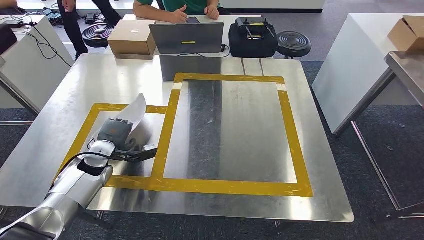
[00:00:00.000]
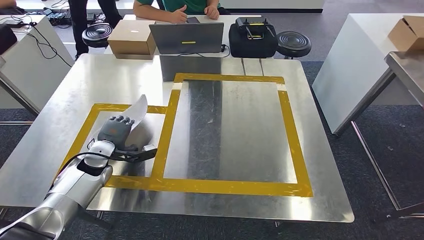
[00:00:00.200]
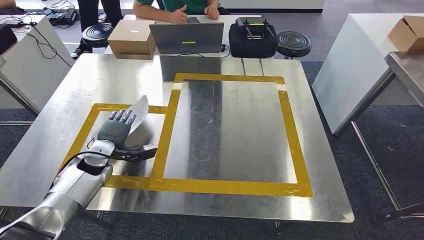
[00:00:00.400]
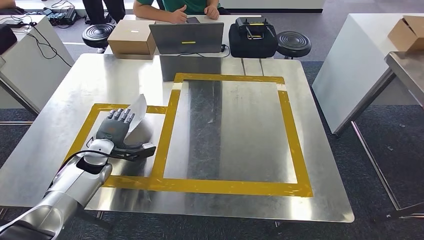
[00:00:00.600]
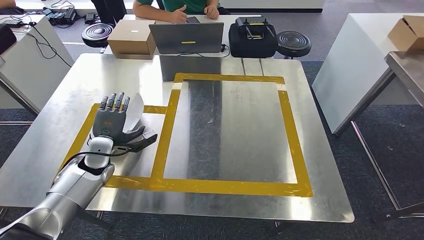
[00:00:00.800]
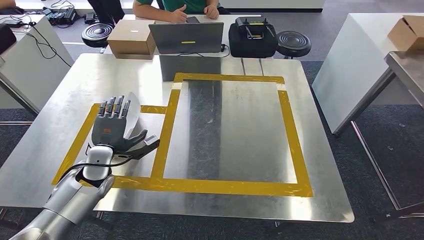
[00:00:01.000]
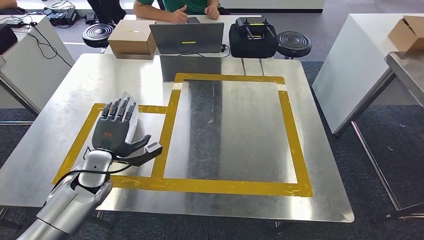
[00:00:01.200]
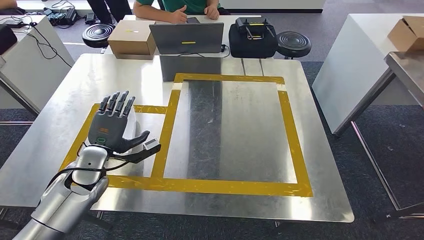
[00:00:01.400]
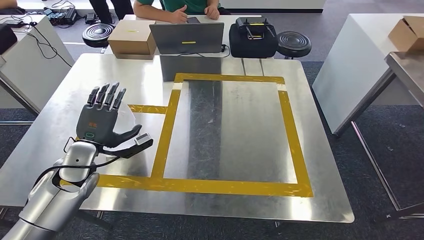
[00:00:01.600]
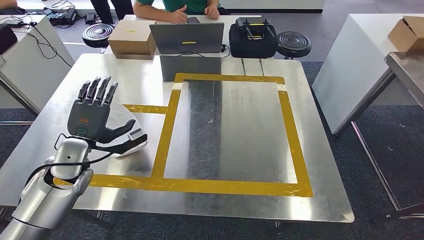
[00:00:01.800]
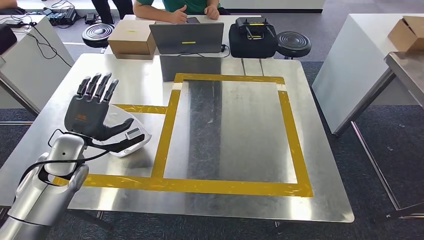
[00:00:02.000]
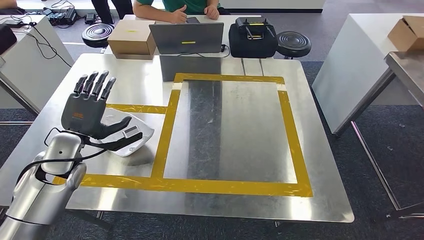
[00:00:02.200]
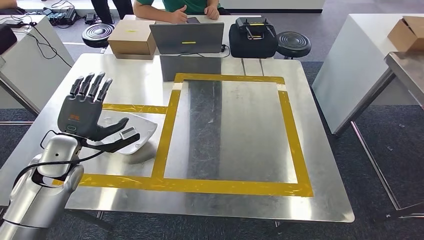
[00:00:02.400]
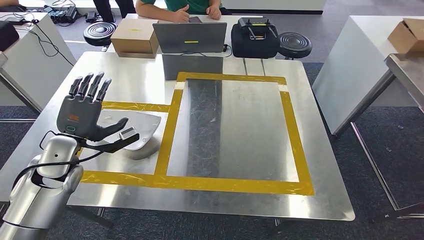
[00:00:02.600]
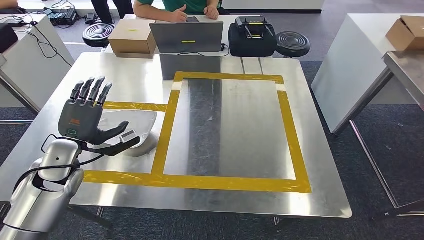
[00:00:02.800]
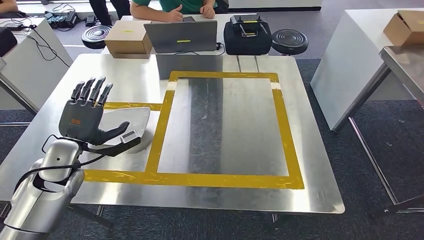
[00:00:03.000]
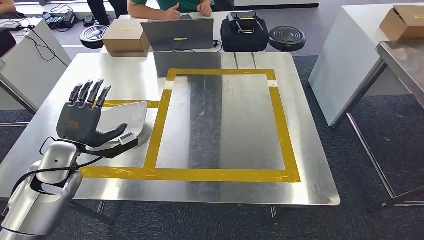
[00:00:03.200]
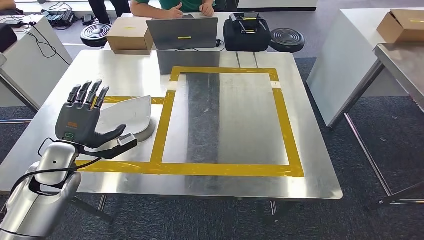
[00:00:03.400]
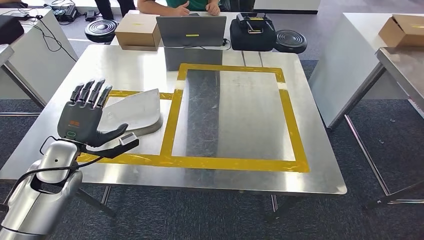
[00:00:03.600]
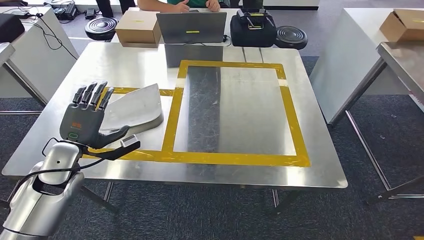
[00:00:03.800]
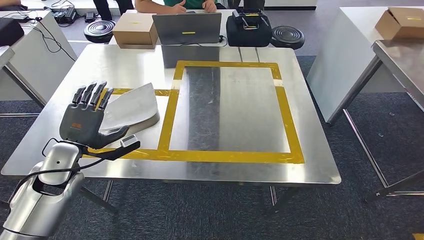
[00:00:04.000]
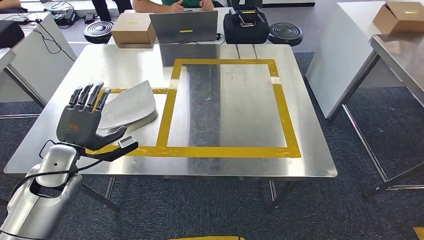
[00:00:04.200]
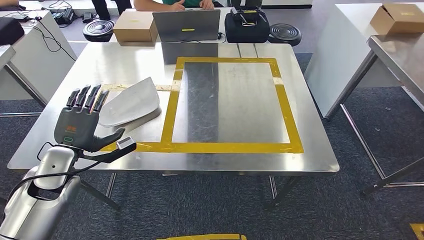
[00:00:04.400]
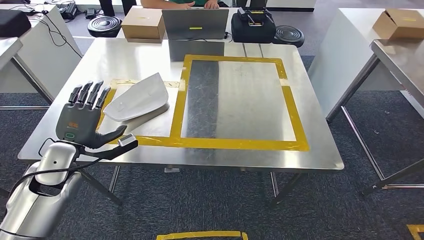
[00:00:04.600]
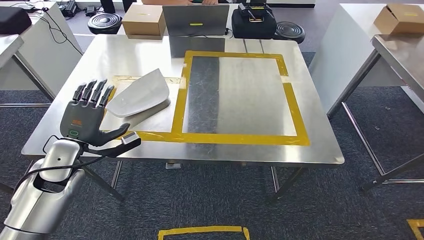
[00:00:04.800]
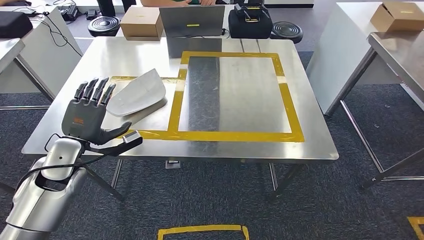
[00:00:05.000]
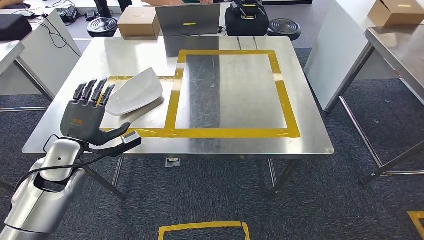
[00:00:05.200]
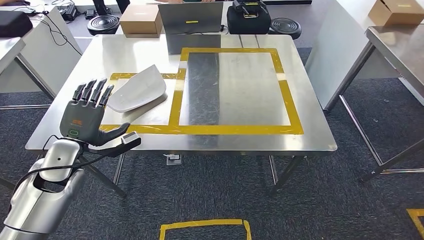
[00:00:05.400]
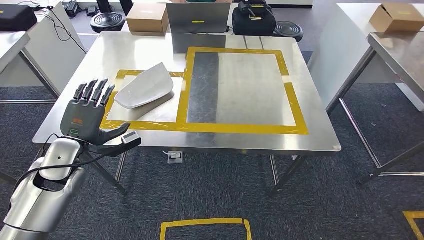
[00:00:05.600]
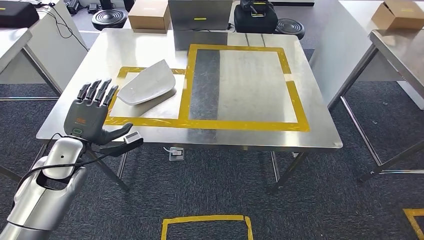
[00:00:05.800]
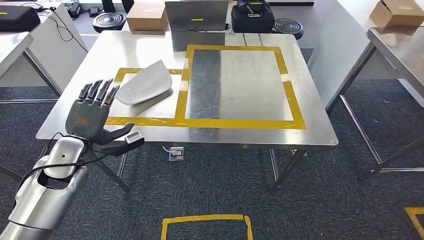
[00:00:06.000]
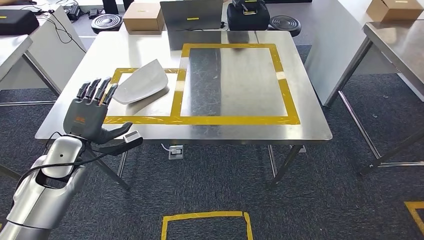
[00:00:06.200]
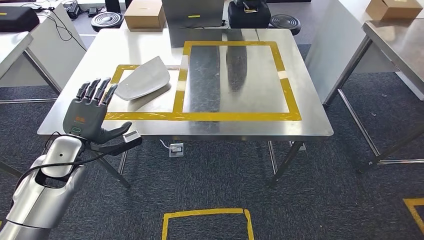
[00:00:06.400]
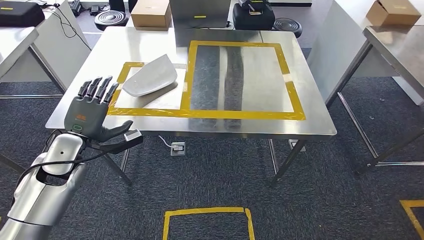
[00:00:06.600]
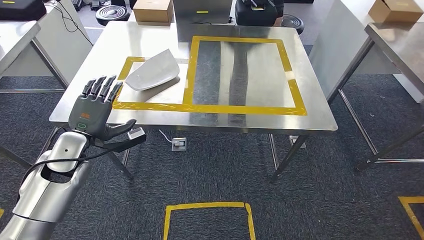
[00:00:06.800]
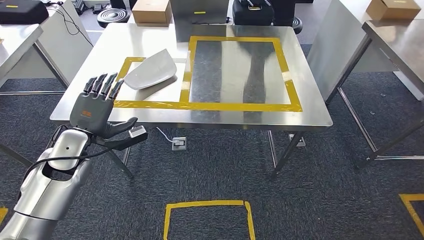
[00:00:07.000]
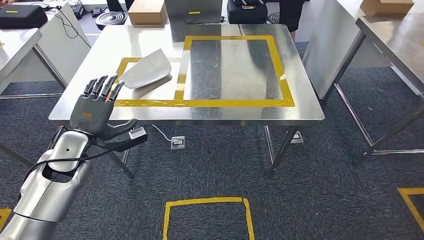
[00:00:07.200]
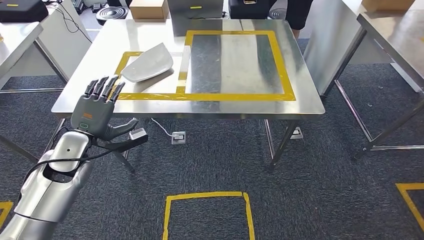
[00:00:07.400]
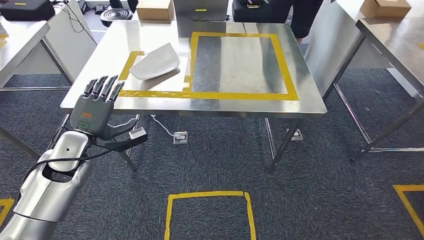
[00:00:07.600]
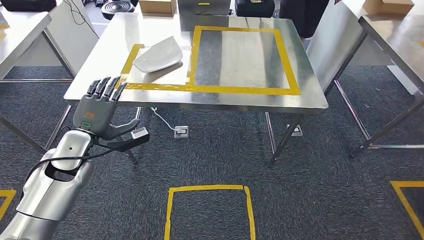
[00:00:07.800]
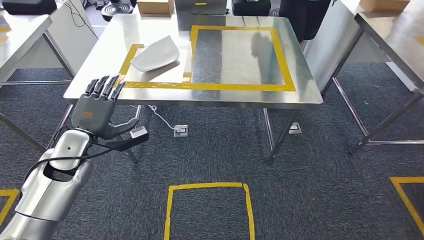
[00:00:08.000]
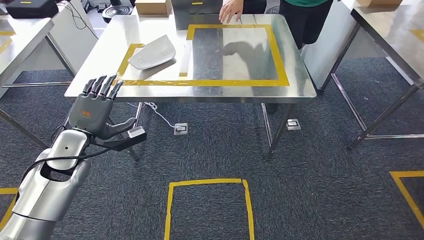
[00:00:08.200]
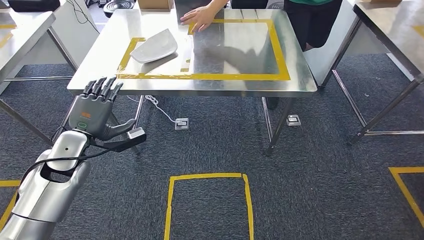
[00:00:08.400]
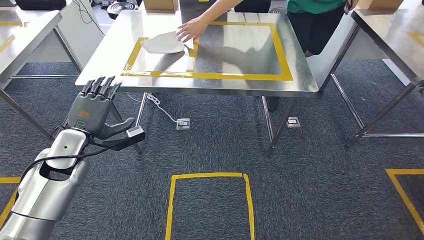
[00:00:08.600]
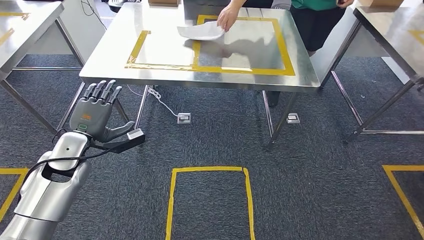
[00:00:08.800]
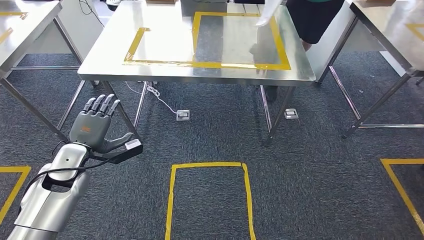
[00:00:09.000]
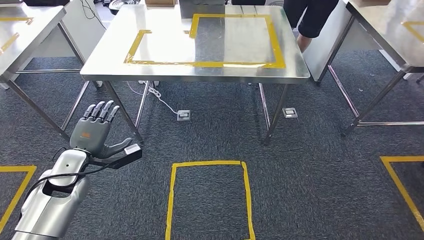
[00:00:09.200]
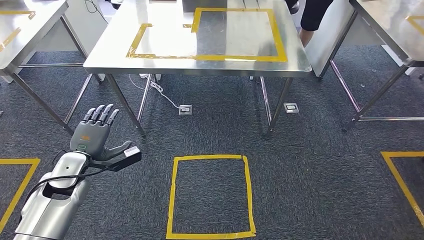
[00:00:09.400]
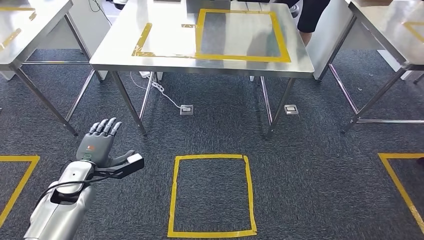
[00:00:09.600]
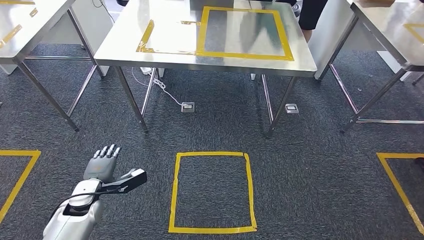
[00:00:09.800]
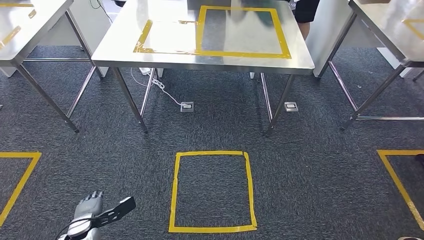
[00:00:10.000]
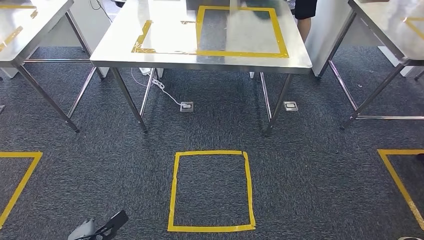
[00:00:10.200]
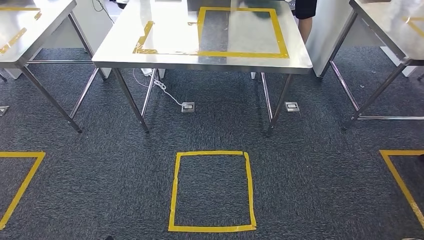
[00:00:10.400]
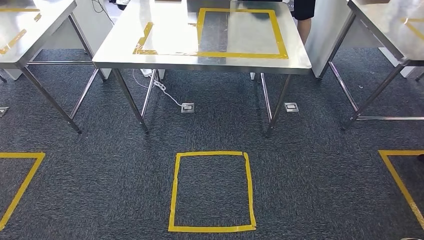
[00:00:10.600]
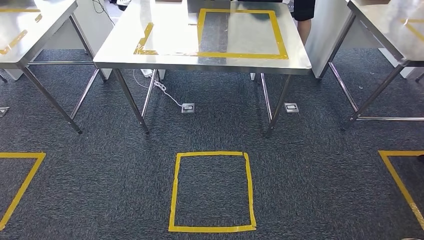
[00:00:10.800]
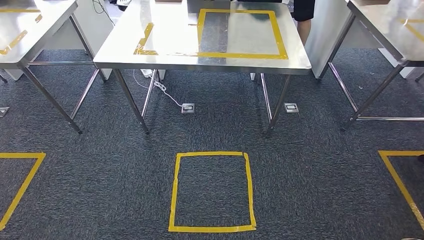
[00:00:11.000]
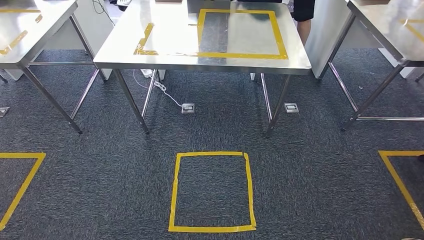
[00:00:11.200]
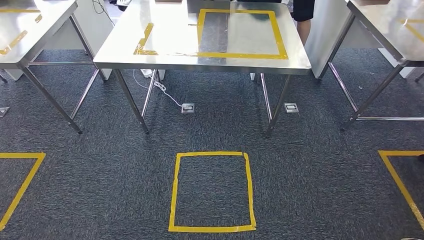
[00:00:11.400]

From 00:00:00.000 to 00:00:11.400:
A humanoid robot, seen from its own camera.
Step, from 00:00:01.600 to 00:00:11.400: Return to the initial position at the workbench.
From 00:00:00.000 to 00:00:01.400: The left hand heads upward, covering some 5 cm.
From 00:00:01.400 to 00:00:02.800: The left hand changes place by about 5 cm.
From 00:00:10.000 to 00:00:11.400: The left hand travels backward and downward by roughly 20 cm.
